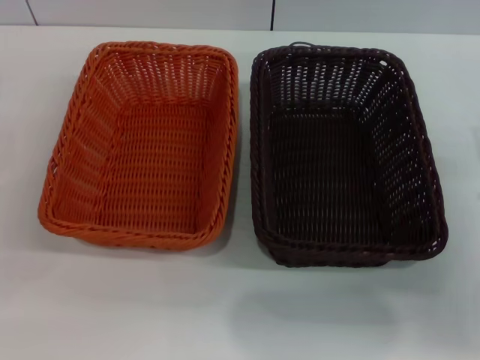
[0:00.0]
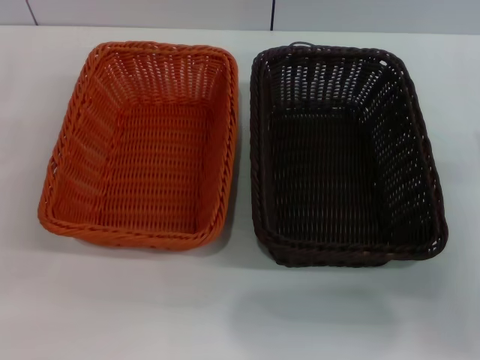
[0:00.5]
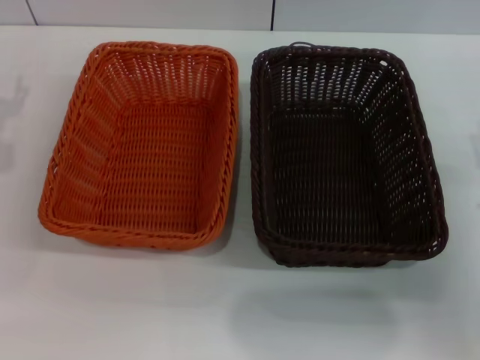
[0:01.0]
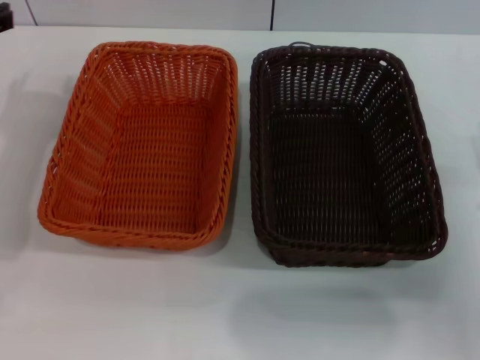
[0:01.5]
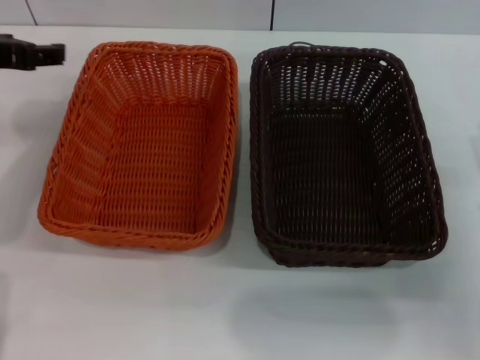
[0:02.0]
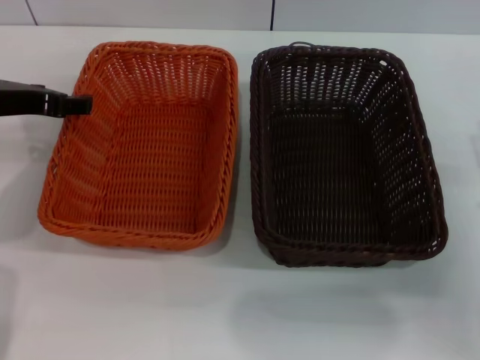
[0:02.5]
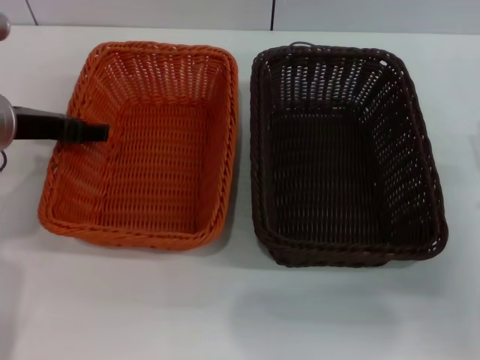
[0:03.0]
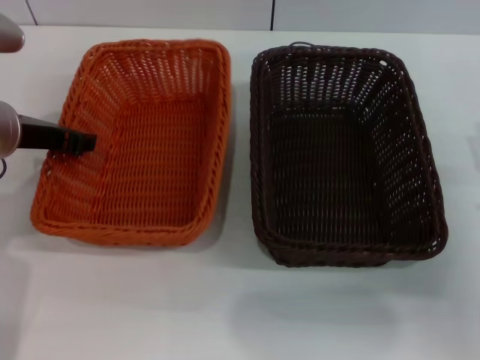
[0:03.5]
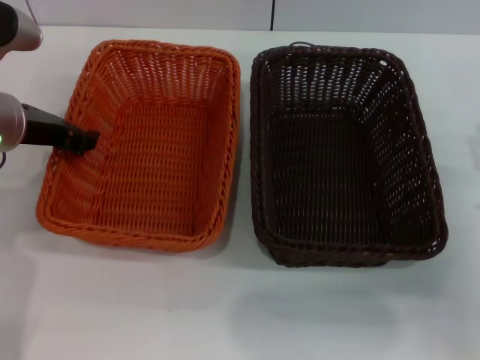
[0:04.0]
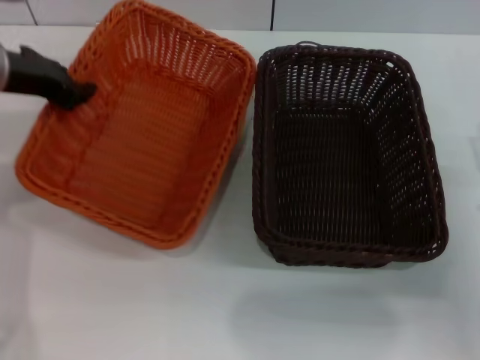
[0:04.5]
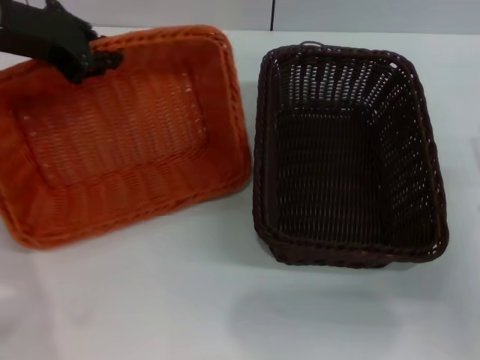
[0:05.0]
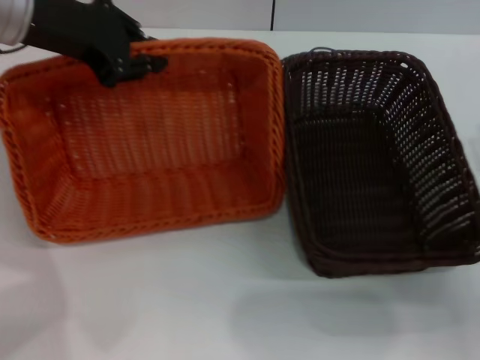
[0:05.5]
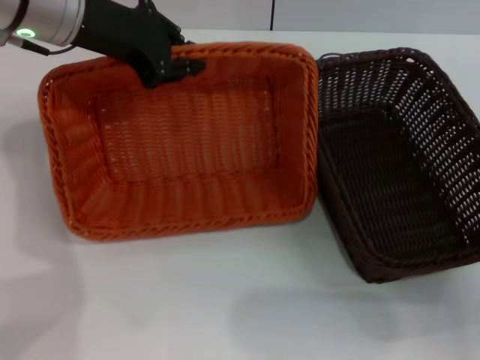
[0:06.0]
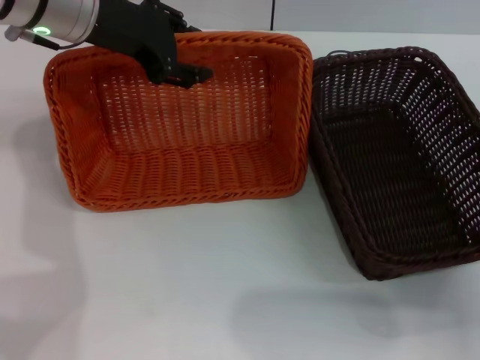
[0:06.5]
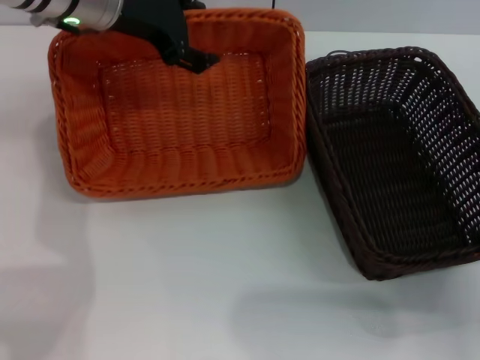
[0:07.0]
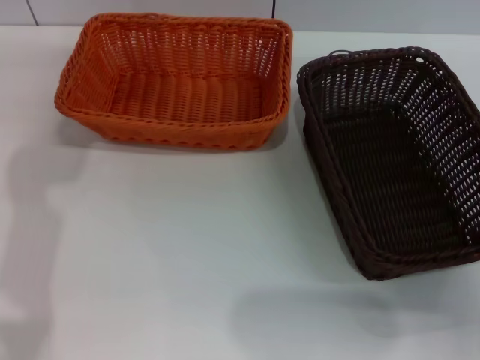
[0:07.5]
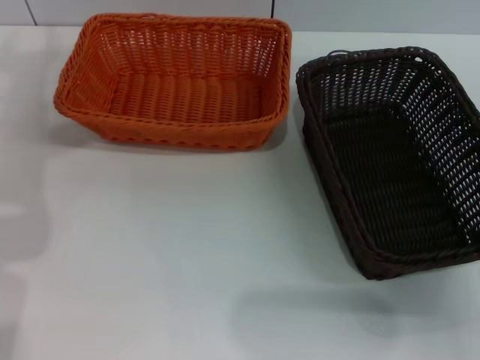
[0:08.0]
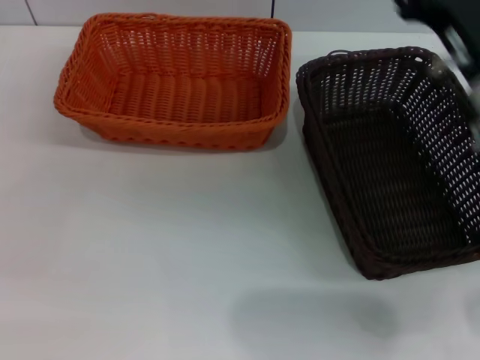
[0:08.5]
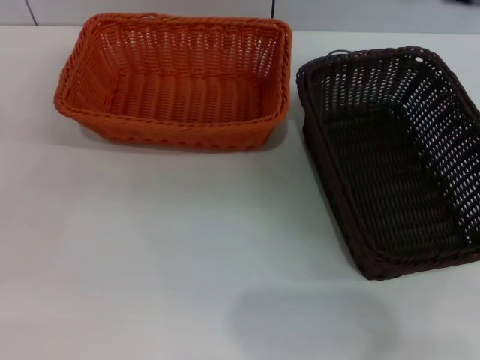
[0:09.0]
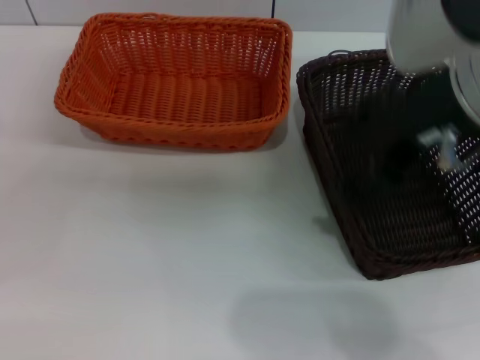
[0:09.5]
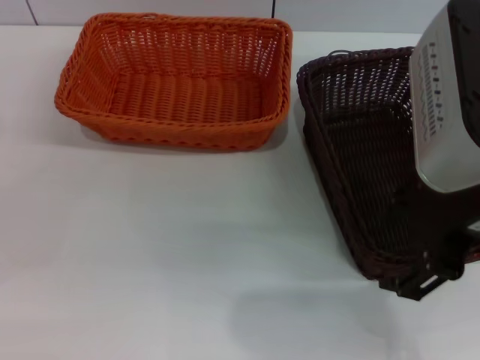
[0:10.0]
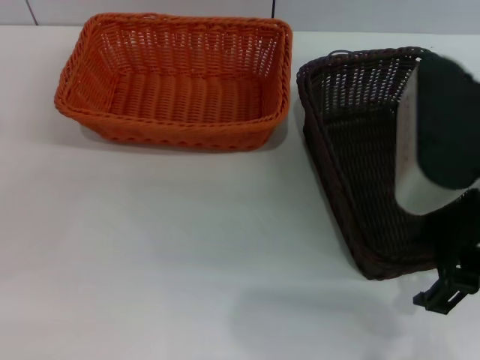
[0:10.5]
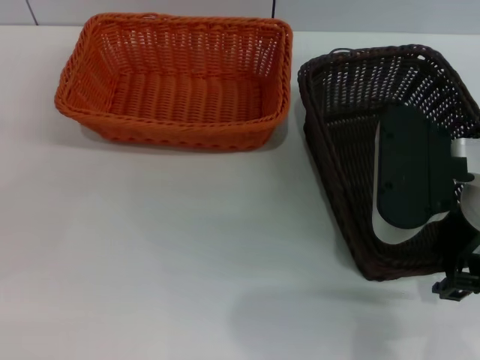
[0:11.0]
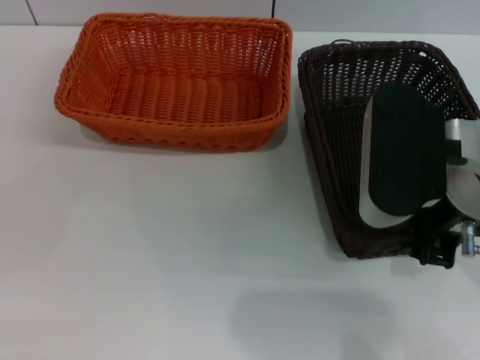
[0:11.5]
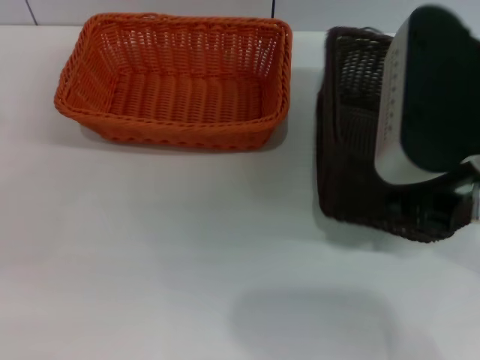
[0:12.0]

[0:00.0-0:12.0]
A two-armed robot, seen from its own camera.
Step, 0:00.0 to 0:04.5: Pick up the light basket with the left gripper.
Step, 0:05.0 to 0:07.0: Place the light basket in the center of view with the left gripper.
Step, 0:07.5 to 0:12.0: Pick up the dark basket with the right gripper.
0:00.0 to 0:02.0: The left gripper goes roughly 20 cm upward, forward and to the right.
0:02.0 to 0:04.0: The left gripper is displaced downward by roughly 5 cm, and closes.
0:04.0 to 0:06.0: The left gripper is displaced upward and forward by approximately 10 cm.
0:06.0 to 0:08.0: The left gripper shifts about 10 cm to the left, and opens up.
0:08.0 to 0:10.0: The left gripper moves downward, backward and to the left, about 20 cm; the right gripper goes about 25 cm upward and to the left.
0:10.0 to 0:12.0: The right gripper goes downward and returns, about 10 cm each way, and closes.

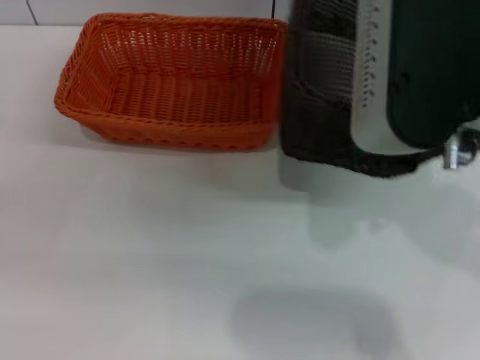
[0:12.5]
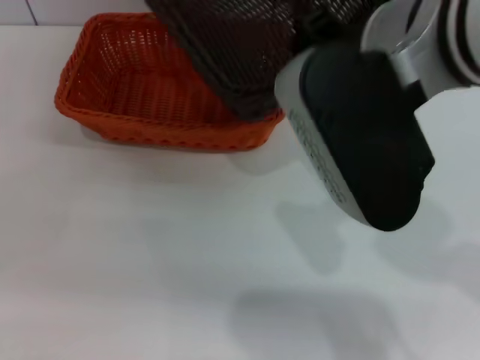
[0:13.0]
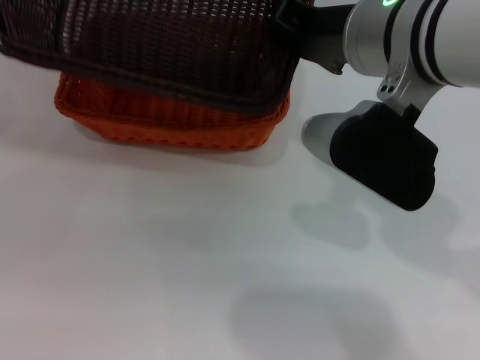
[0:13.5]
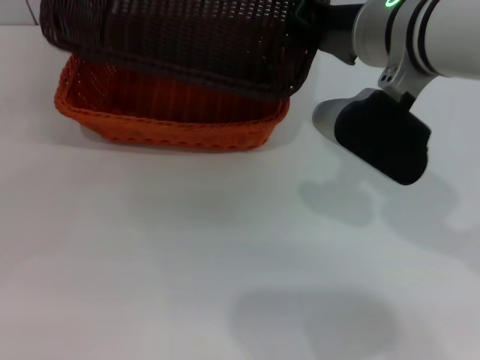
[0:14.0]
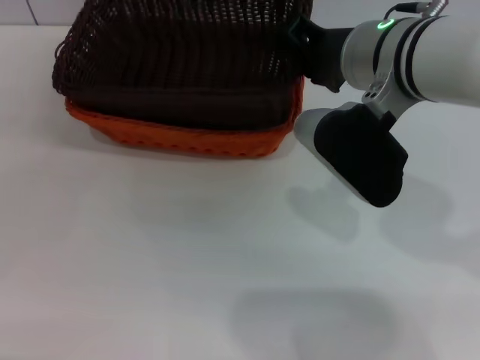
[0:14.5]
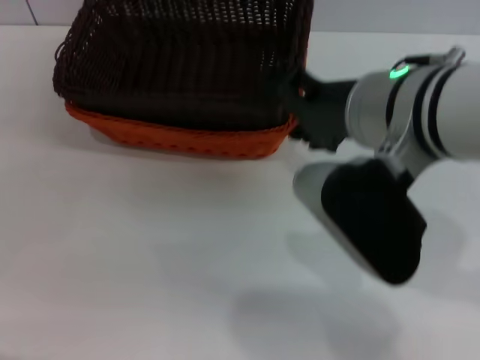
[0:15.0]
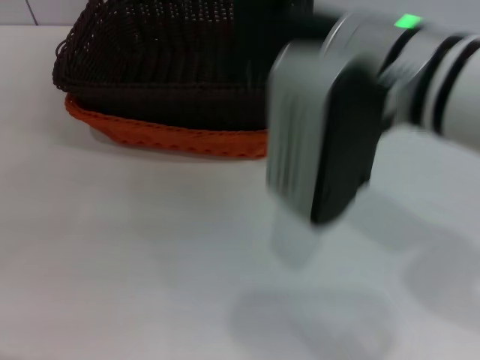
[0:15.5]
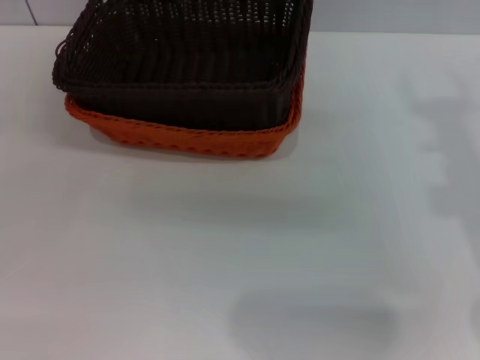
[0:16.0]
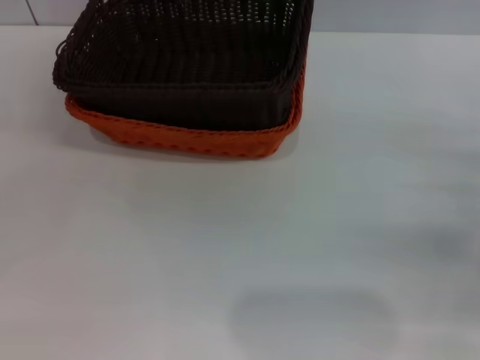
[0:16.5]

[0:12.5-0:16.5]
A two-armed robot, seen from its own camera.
Step, 0:12.5 to 0:14.5: Place the dark basket on the light basket with the right gripper.
0:12.5 to 0:14.5: The right gripper heads downward and forward, covering roughly 10 cm, and opens up.
0:14.5 to 0:16.5: The right gripper moves to the right and downward, approximately 25 cm, and opens its fingers.
